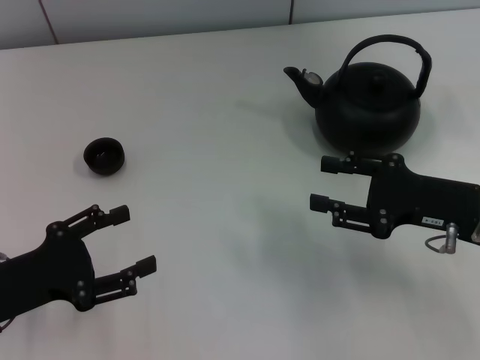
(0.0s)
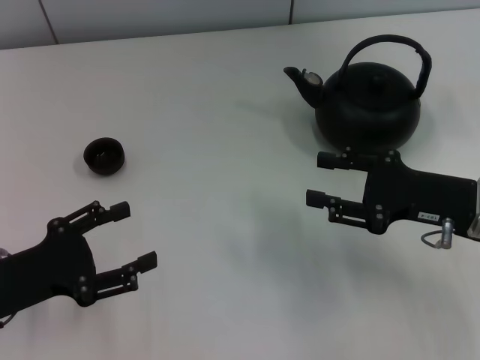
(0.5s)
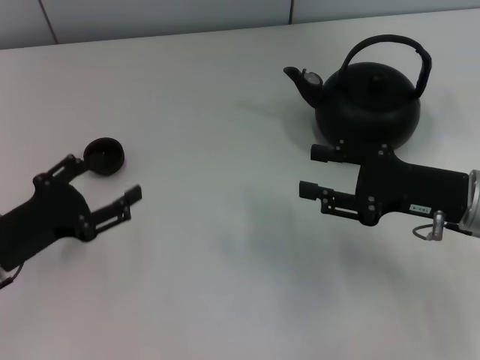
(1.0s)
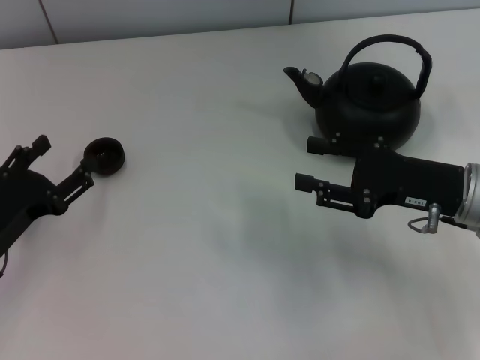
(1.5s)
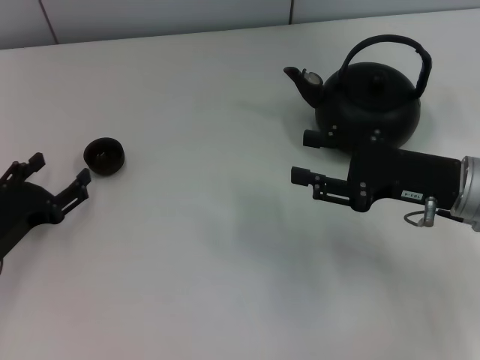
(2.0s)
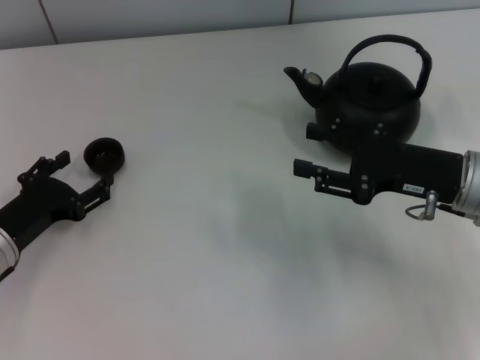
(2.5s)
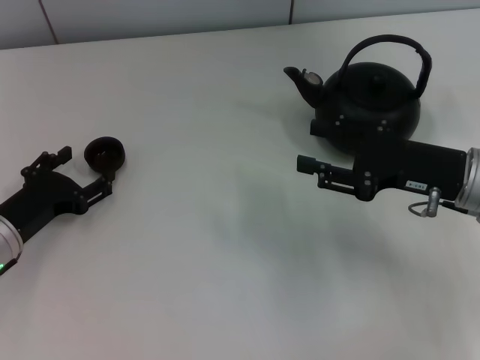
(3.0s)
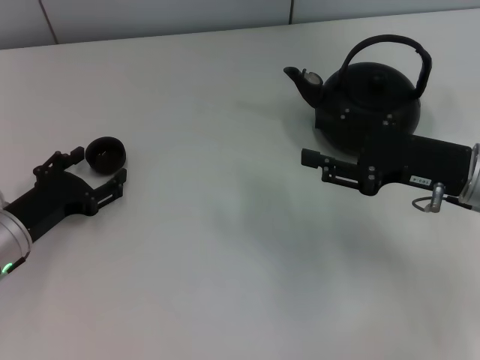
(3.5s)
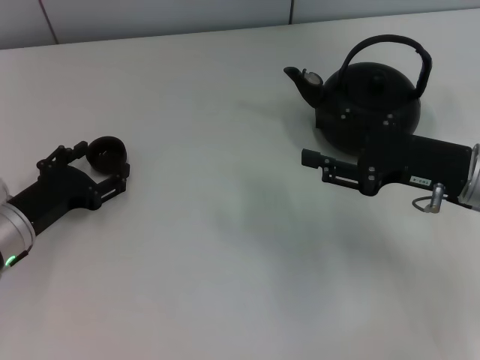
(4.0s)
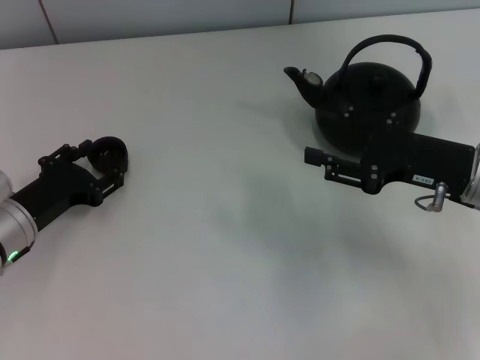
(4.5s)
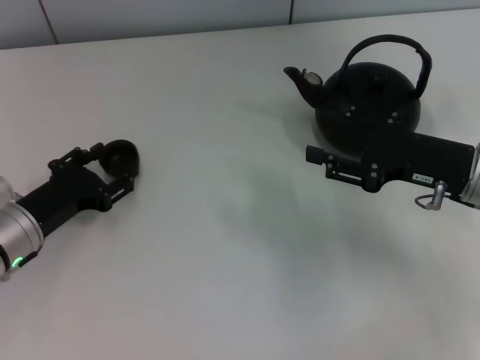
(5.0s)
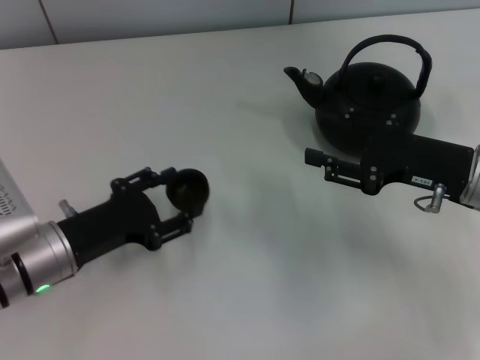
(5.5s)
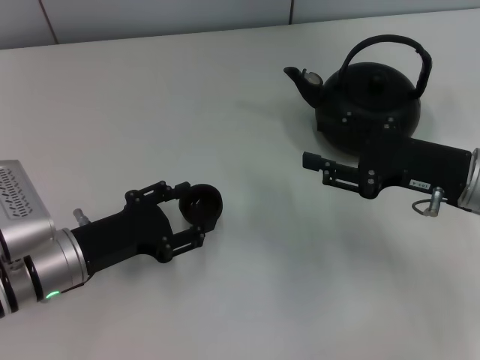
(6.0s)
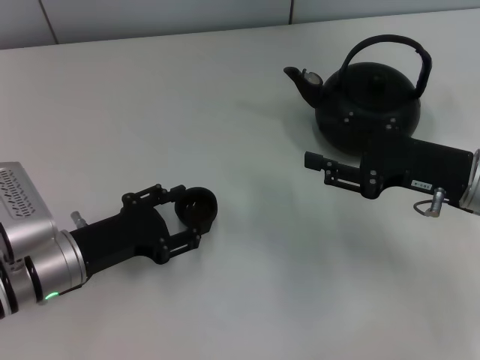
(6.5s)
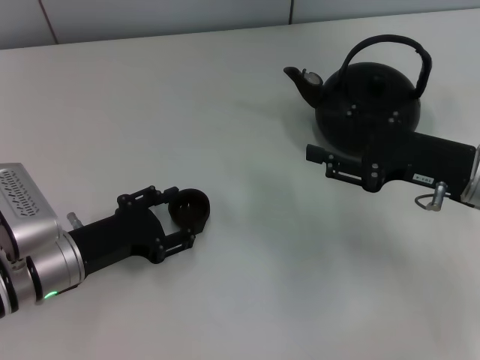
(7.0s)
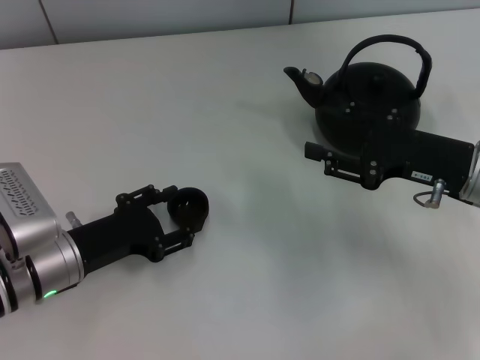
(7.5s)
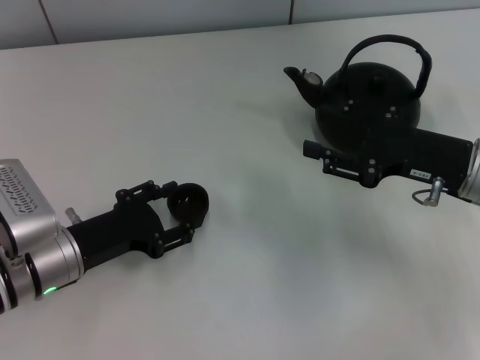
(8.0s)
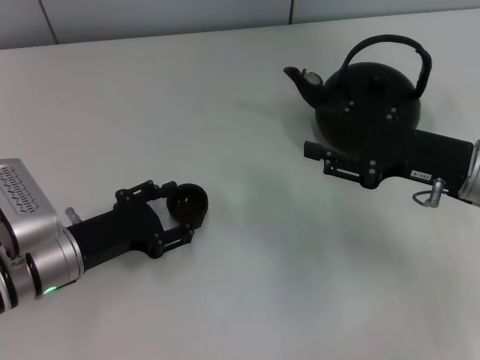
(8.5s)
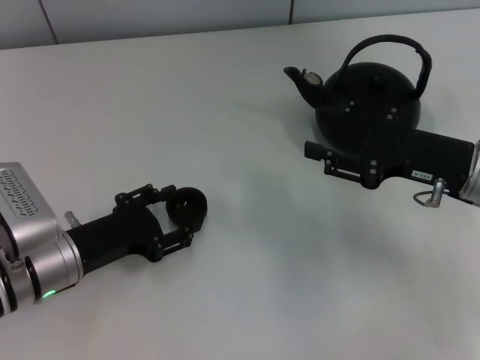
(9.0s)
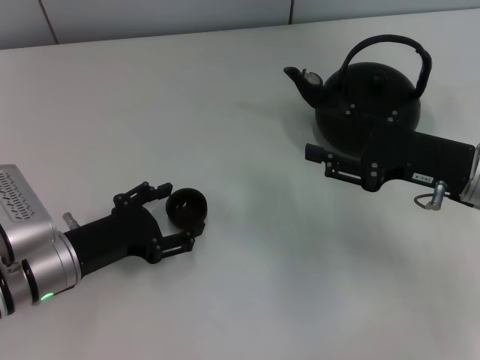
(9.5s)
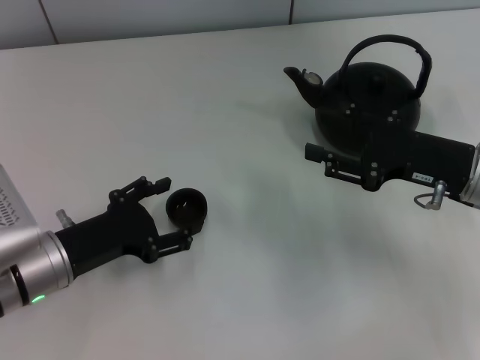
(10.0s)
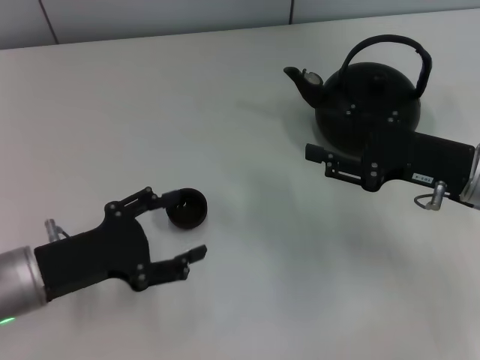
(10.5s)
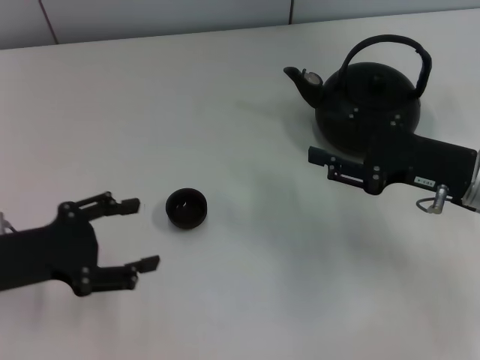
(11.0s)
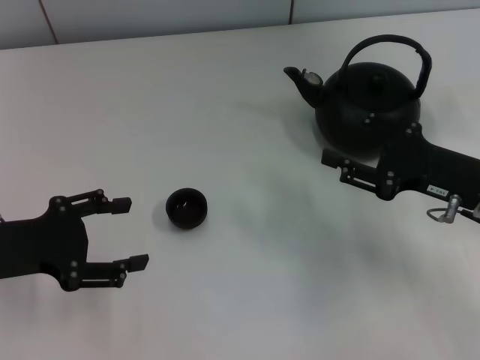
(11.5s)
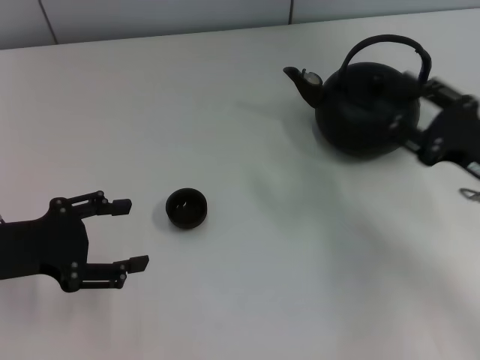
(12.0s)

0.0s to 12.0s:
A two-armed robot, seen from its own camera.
Task of the whole recording: Grasp the handle of the teapot with one hand and pour tea into the teacup.
Step, 0.0s to 5.0s: Pick up the teacup with the left gripper.
Step, 5.5s to 10.5s: Place the teacup in the center of view with the left gripper.
0.0s to 2.0s: The left gripper changes place by some 5 cm.
2.0s to 4.0s: There are only small adjustments of the grippers.
4.0s to 6.0s: The left gripper shifts by approximately 5 cm, and closes its fingers.
6.0s to 8.0s: The grippers make only small movements.
8.0s to 10.0s: The left gripper opens.
10.0s to 12.0s: The right gripper changes place by roughly 5 cm. The left gripper travels upward and to the left by roughly 10 cm.

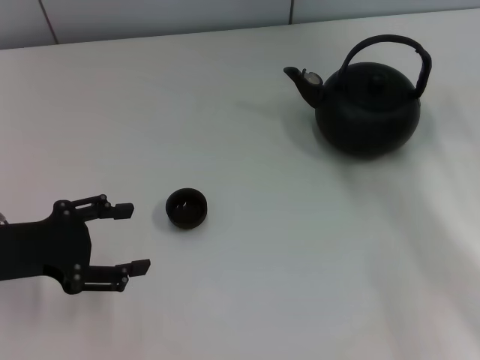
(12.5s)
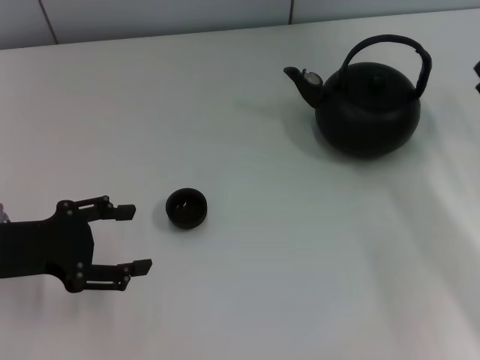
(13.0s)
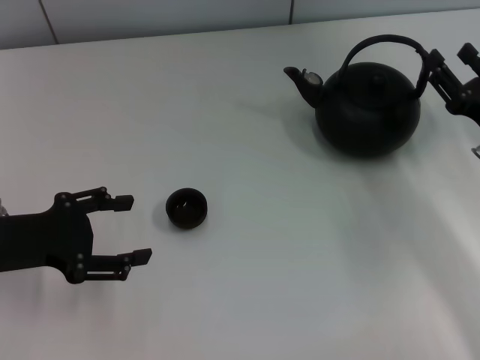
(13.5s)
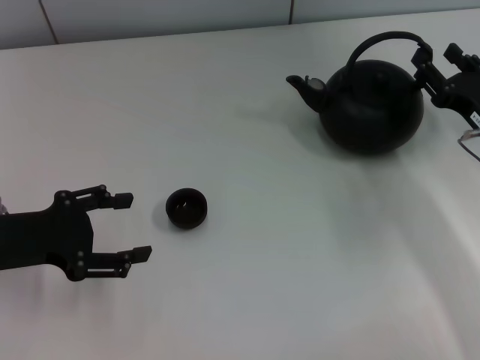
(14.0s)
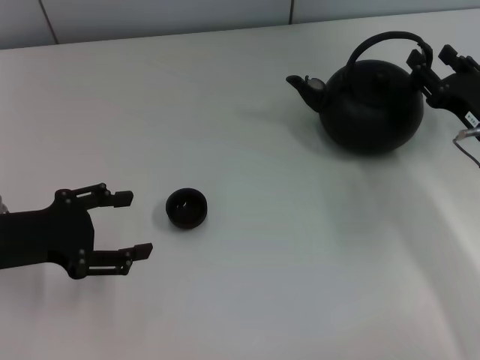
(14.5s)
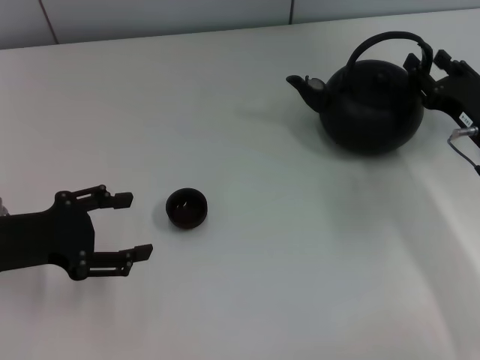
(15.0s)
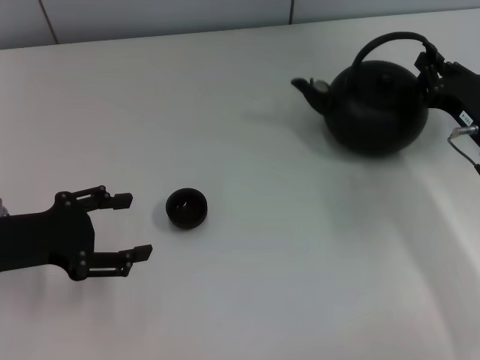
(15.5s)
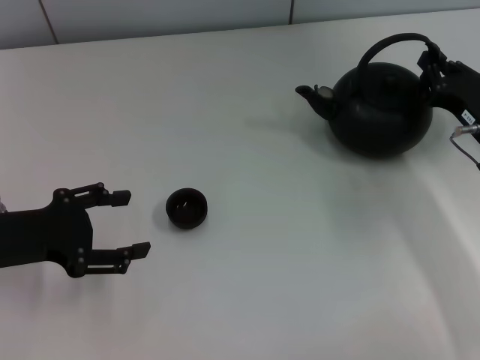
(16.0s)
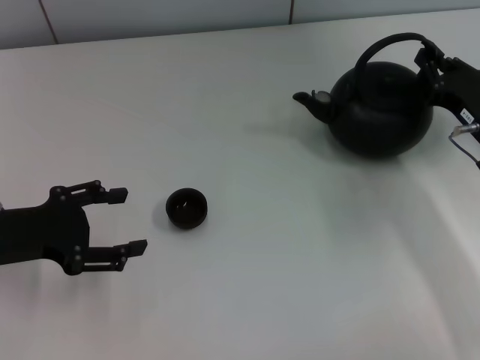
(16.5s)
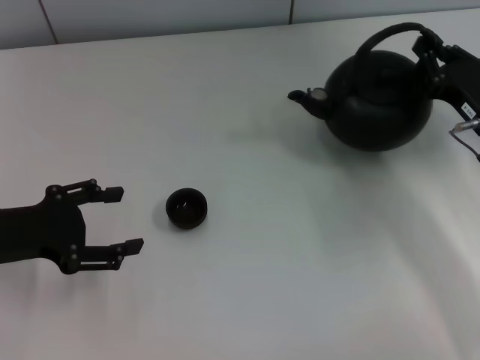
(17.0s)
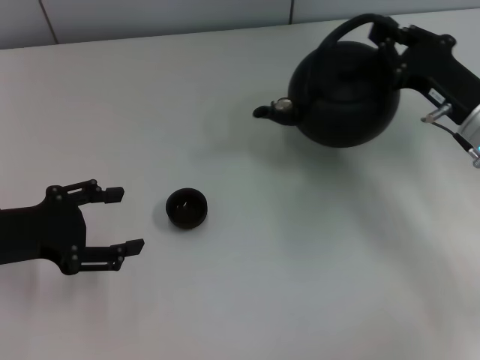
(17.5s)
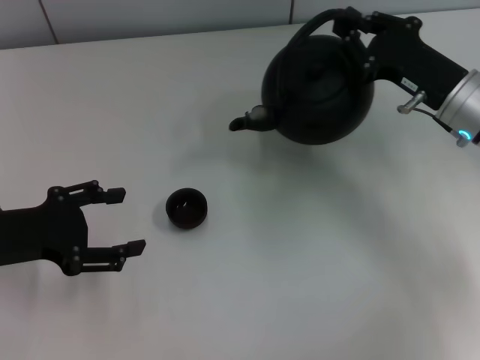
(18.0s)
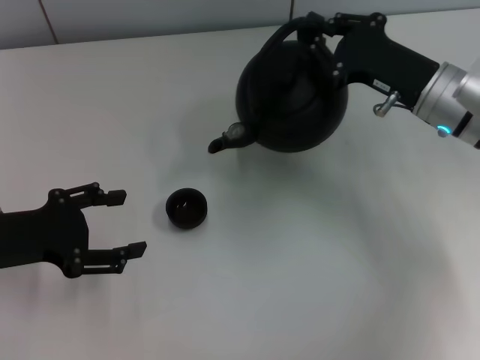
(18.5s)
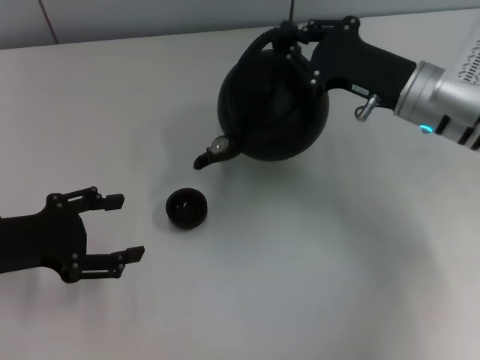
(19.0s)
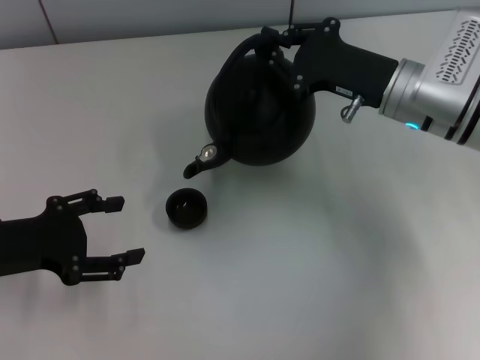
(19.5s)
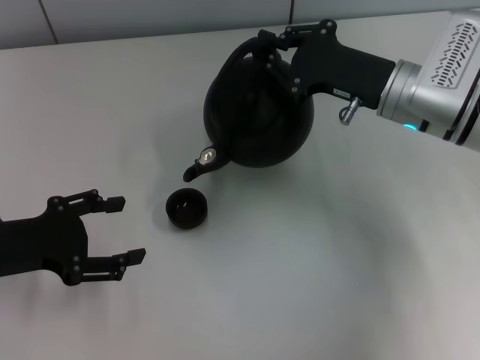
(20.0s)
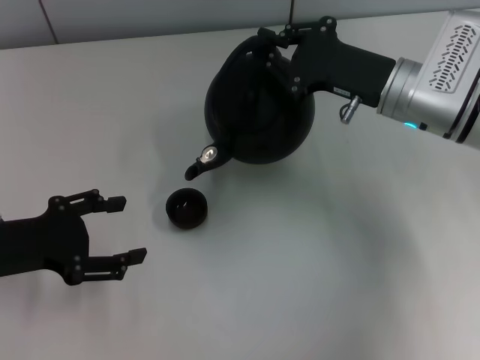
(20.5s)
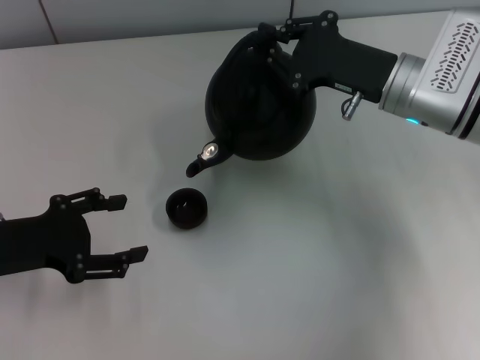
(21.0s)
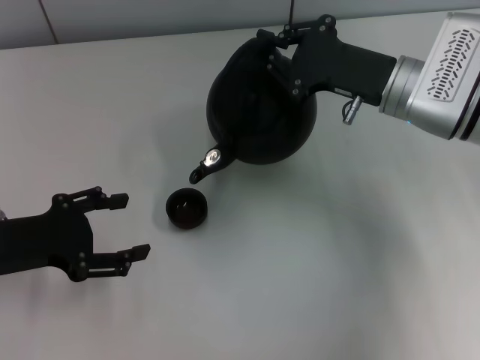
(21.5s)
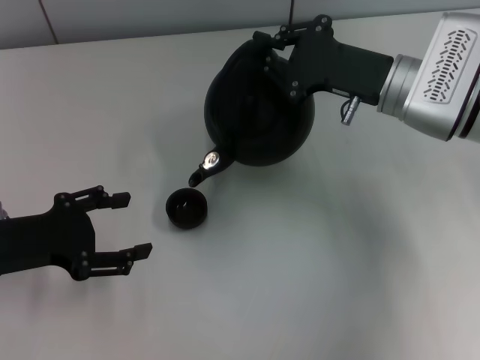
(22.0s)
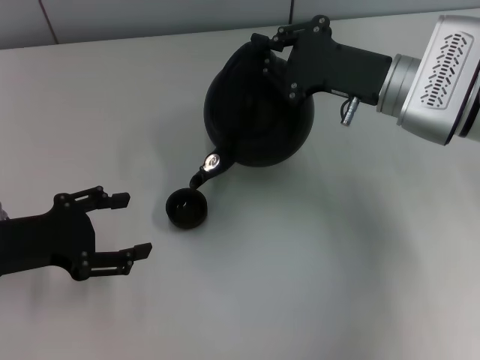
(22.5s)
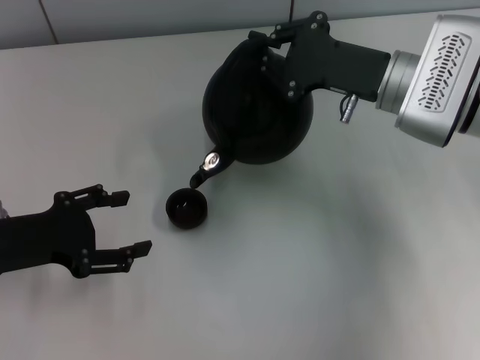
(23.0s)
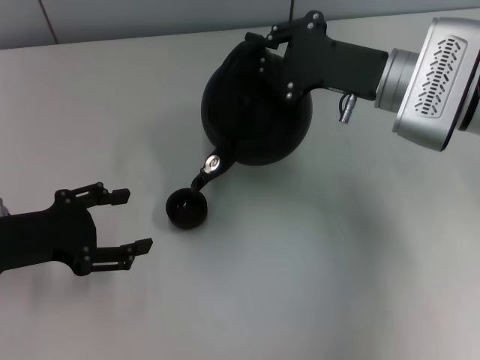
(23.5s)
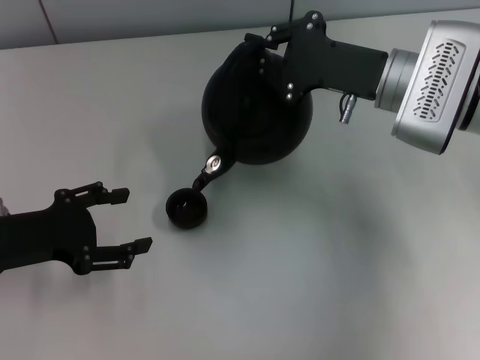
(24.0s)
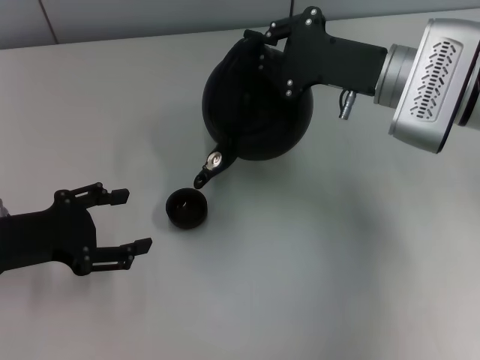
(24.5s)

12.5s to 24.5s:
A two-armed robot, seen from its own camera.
Task of the whole recording: Grasp the handle of the teapot with one hand and pour tea into the teacup.
Step, 12.5s to 17.5s: Pick up the teapot with the right gripper.
12.5s to 14.5s: The right gripper travels forward by approximately 10 cm.
14.5s to 16.5s: The right gripper closes up.
16.5s to 18.5s: The right gripper heads to the left and upward, covering about 10 cm.
18.5s to 20.5s: There are only small adjustments of the grippers.
20.5s to 24.5s: The grippers make only small movements.

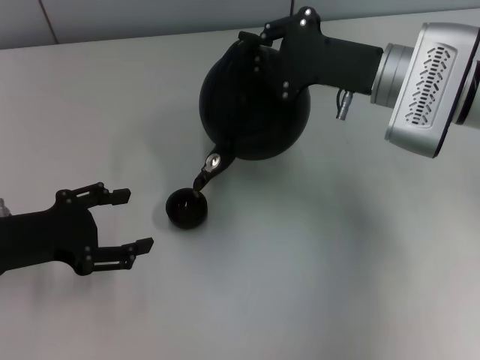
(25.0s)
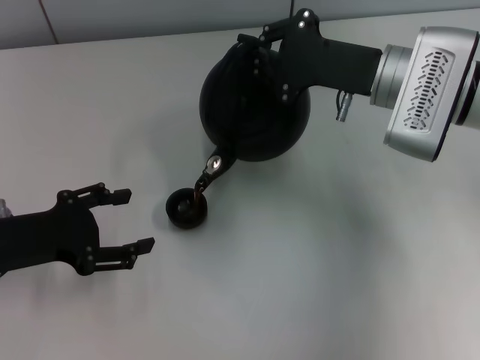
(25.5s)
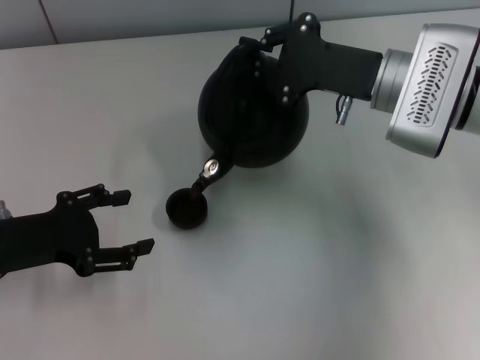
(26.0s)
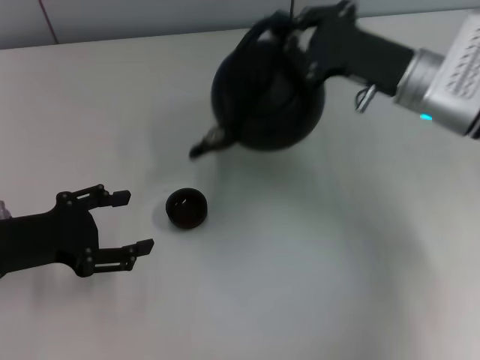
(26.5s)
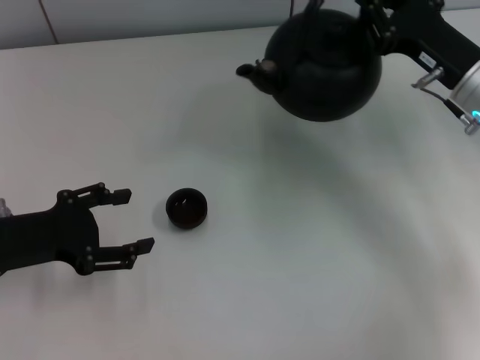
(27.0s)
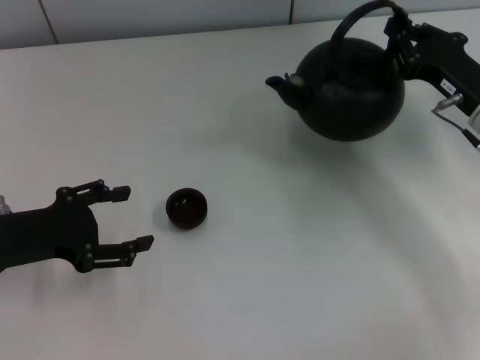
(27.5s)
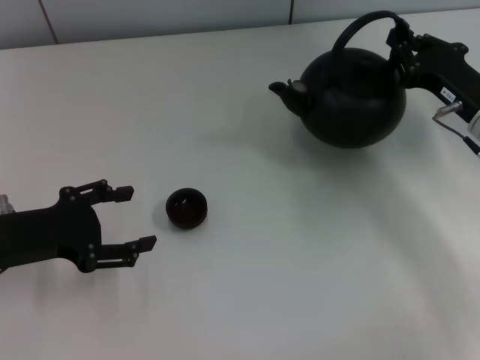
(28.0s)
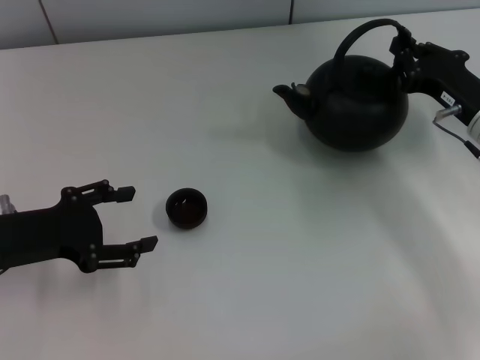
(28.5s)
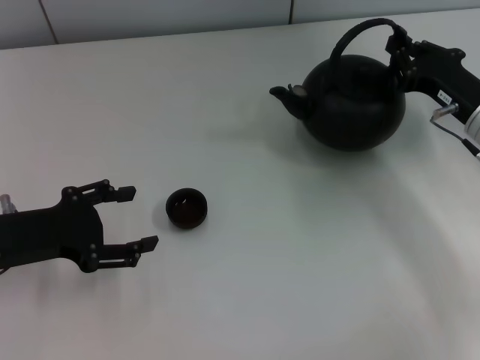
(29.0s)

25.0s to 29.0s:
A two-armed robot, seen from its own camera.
Task of the whole recording: Grasp the handle of the teapot with one hand and pour tea into the teacup.
25.0s to 27.0s: The right gripper travels to the right by roughly 5 cm.
27.0s to 29.0s: The grippers make only small movements.
